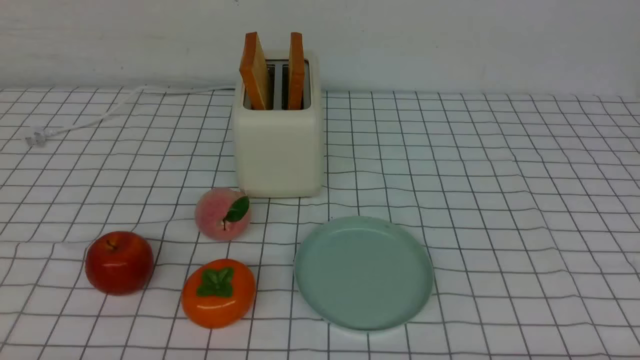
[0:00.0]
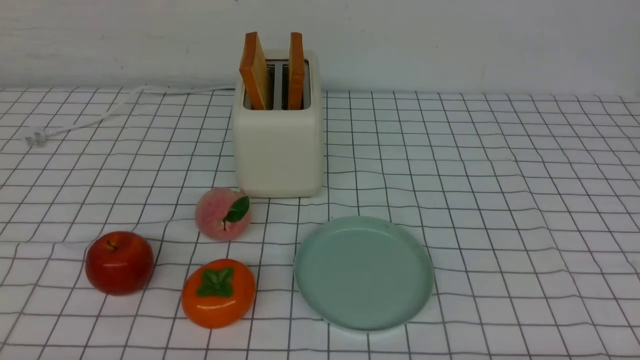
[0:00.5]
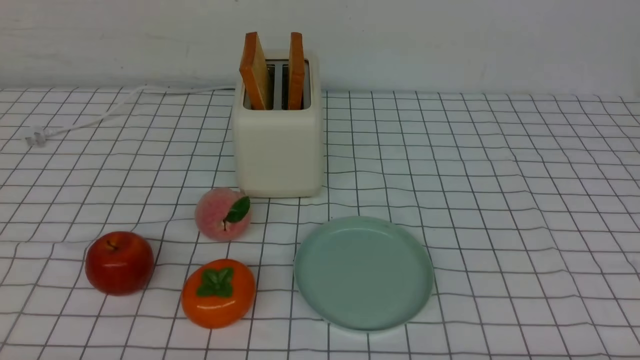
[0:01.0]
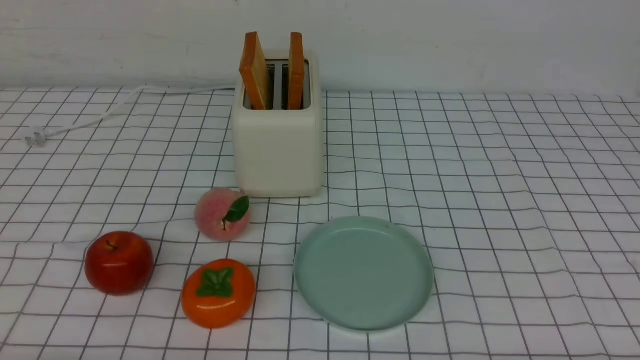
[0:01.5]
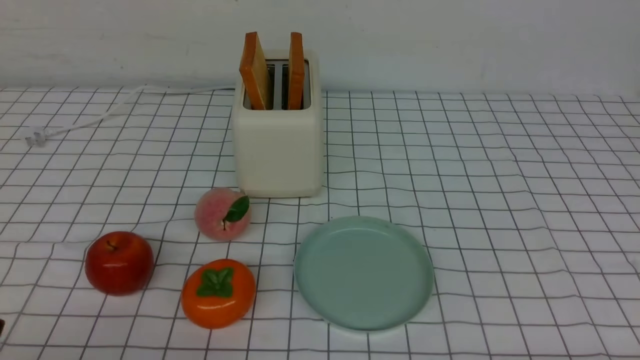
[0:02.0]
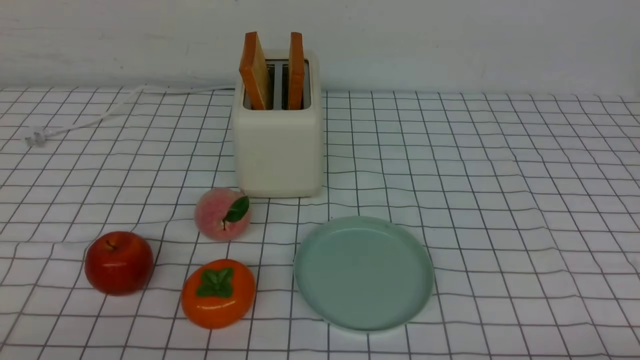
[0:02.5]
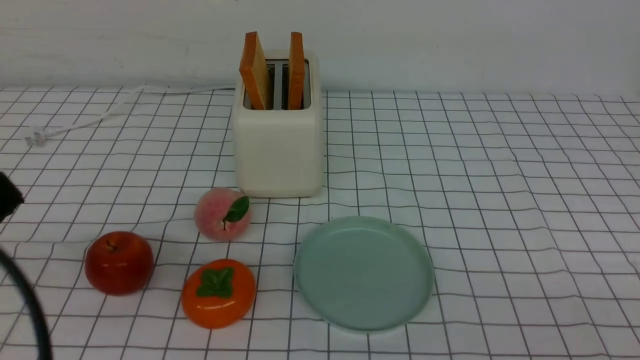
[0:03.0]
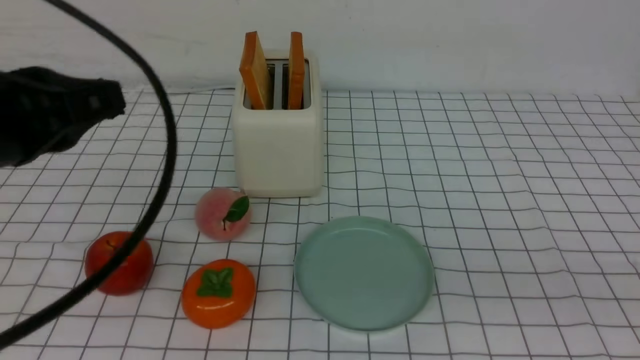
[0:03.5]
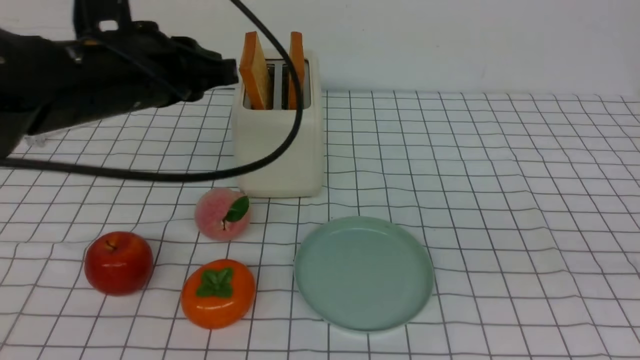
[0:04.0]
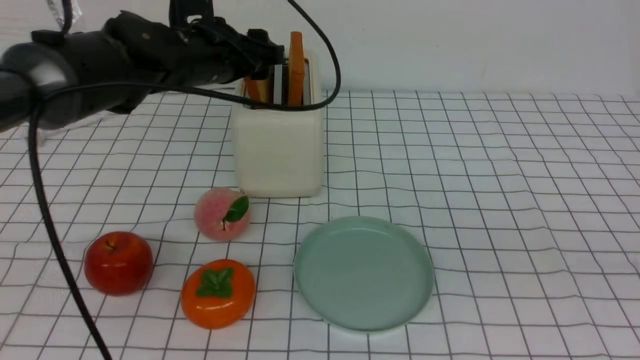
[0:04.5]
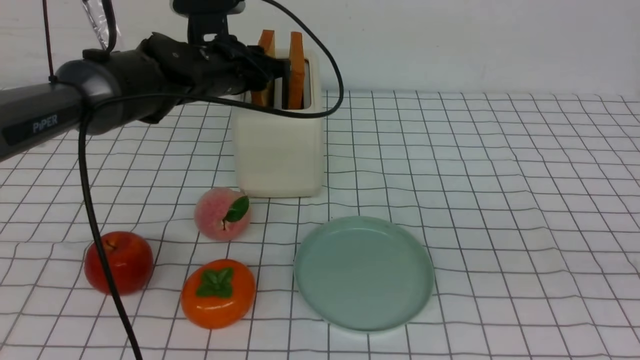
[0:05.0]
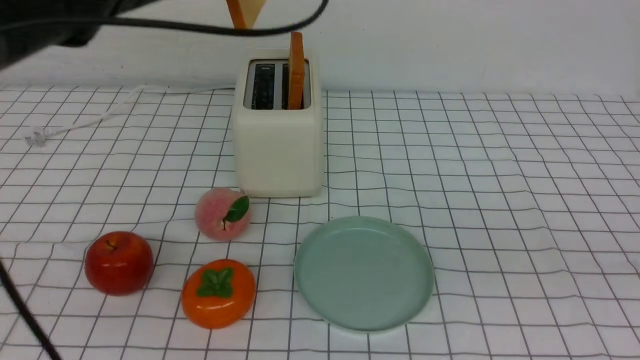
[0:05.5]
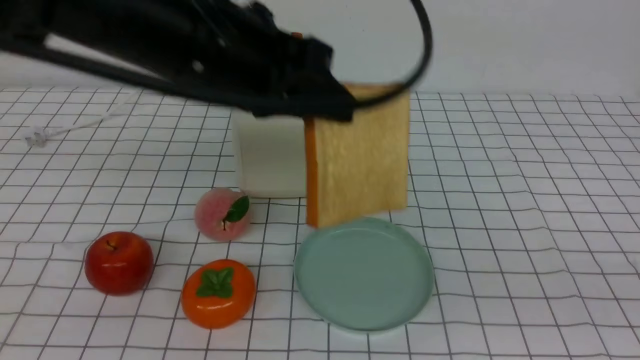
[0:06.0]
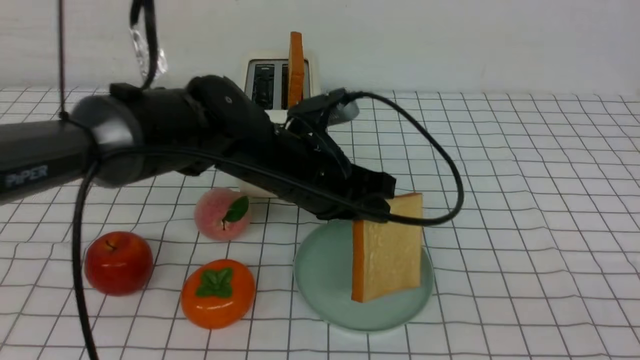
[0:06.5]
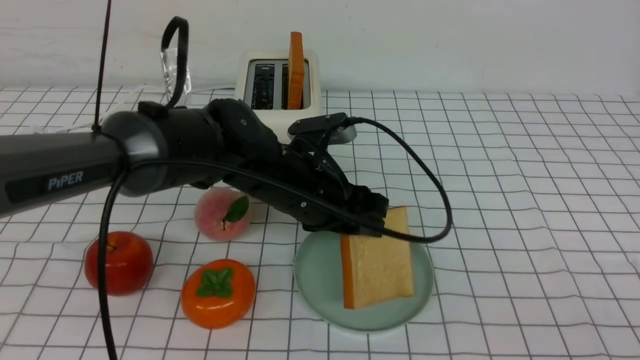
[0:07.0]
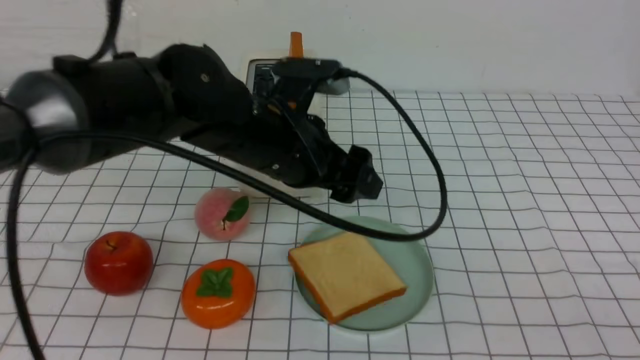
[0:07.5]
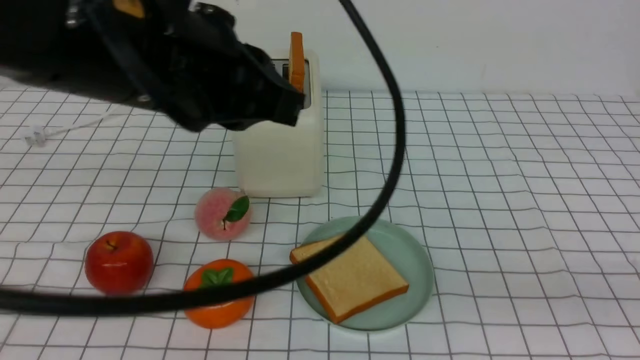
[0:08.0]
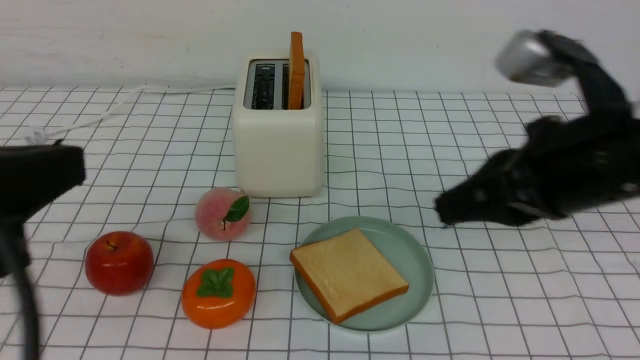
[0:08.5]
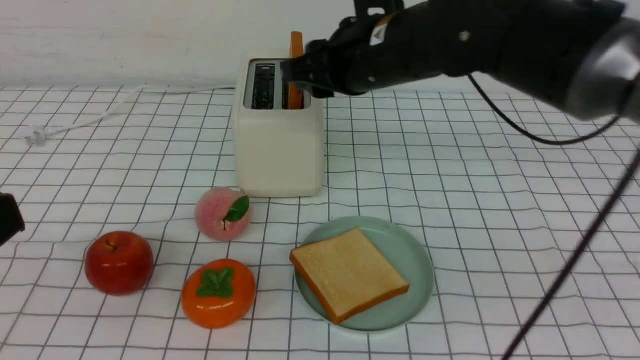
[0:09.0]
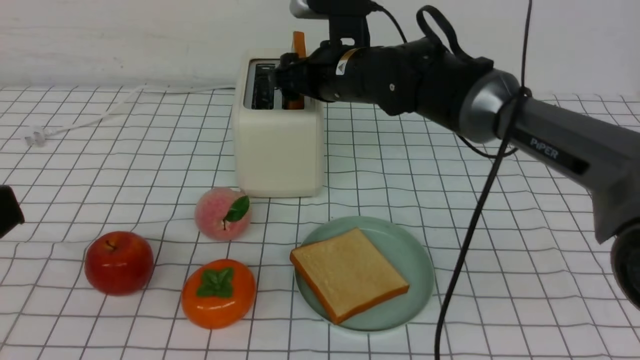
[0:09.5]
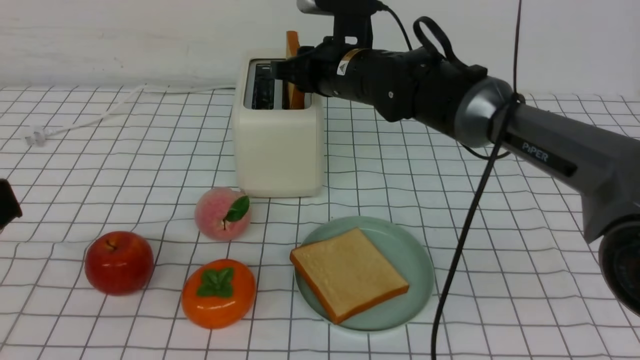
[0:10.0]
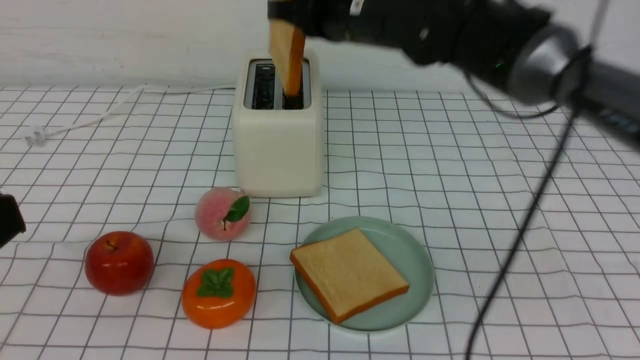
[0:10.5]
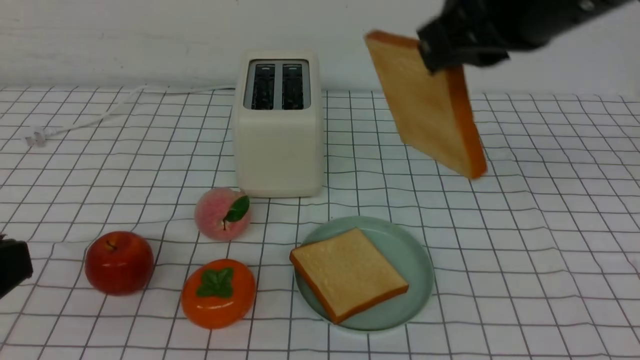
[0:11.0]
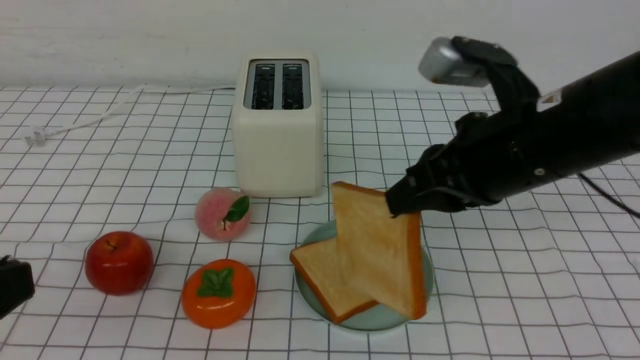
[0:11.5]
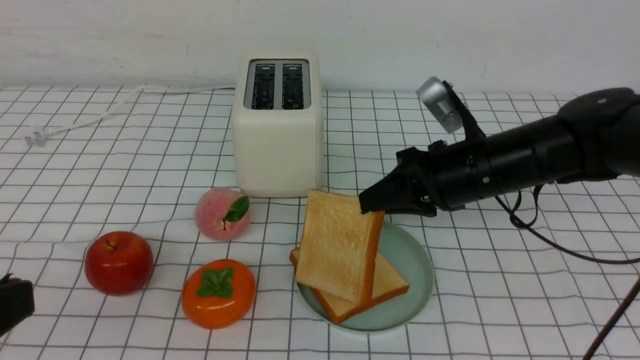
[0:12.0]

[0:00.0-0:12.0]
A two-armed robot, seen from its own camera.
Task of the whole recording: take toasted bread from bread machine on white checkered table place on plate.
Step, 0:00.0 to 0:05.0: use the left arm to take out a slice of bread.
Step, 0:05.5 to 0:07.5: use the left arm to put a slice of bread into the empty plate.
Step, 0:08.0 to 0:10.5: use the right arm to take out a slice of bread.
0:02.0 to 0:04.0: The right gripper shifts some 25 cm upward, and closes; the left gripper goes approximately 30 cm forward and upward, and closes and opens again.
0:04.0 to 0:06.0: The left gripper is displaced to the right by about 10 cm, moves approximately 15 cm forward and comes back, and opens, then closes again.
0:06.0 to 0:08.0: The right gripper moves approximately 5 cm. Meanwhile the left gripper shifts some 10 cm backward, travels downward and back again, roughly 15 cm each way, and opens, then closes once more.
0:08.0 to 0:10.0: The left gripper is displaced backward and to the left by about 20 cm, while the right gripper travels forward and to the left by approximately 40 cm, and opens.
0:10.0 to 0:12.0: The right gripper shifts roughly 15 cm to the right and backward.

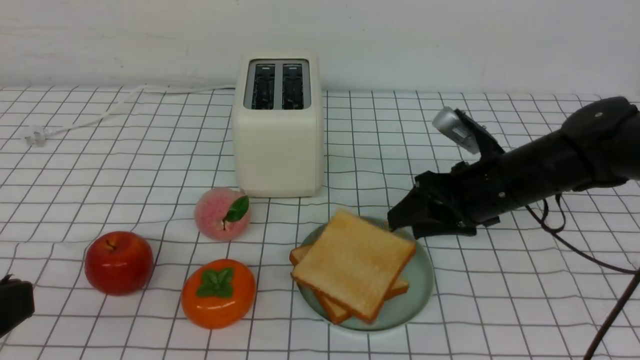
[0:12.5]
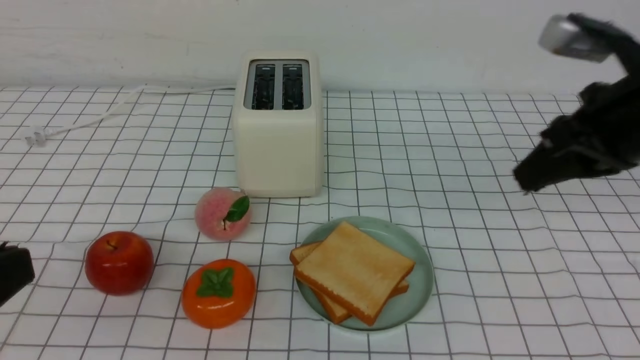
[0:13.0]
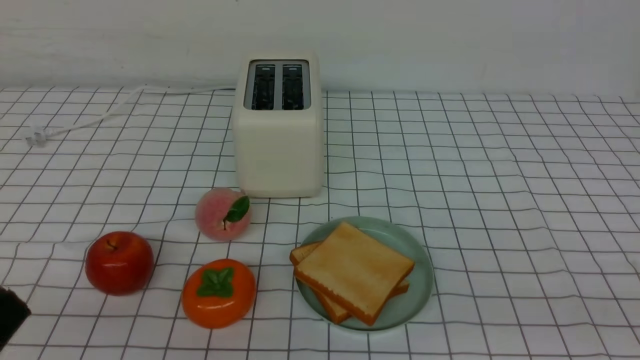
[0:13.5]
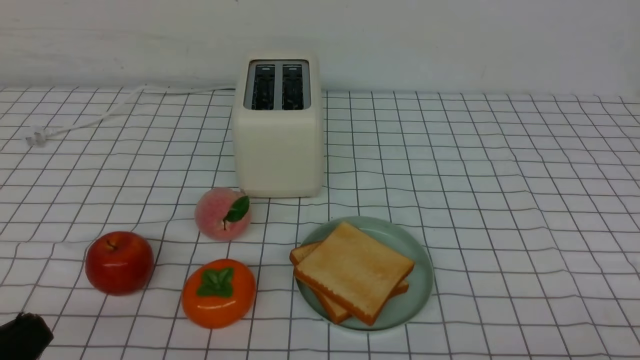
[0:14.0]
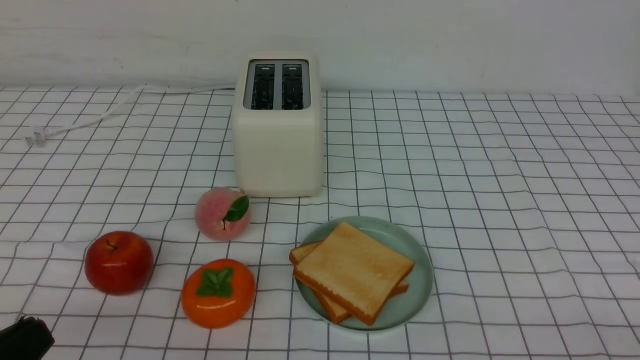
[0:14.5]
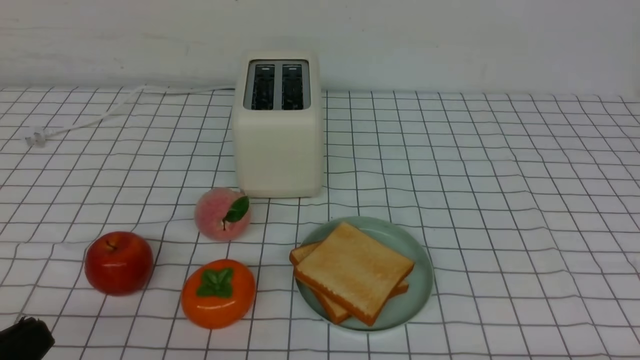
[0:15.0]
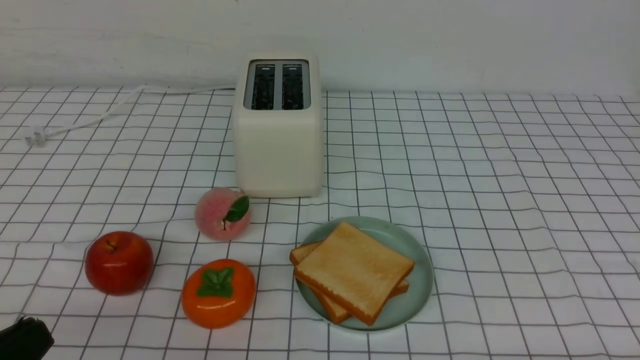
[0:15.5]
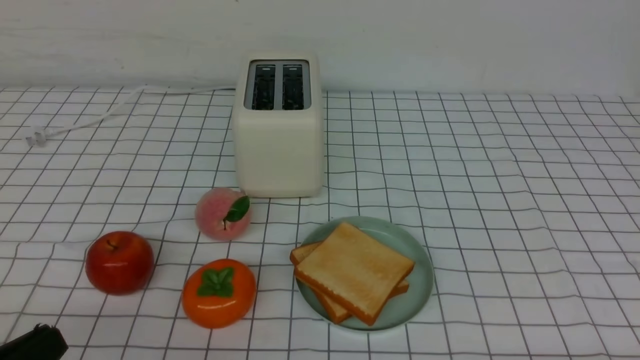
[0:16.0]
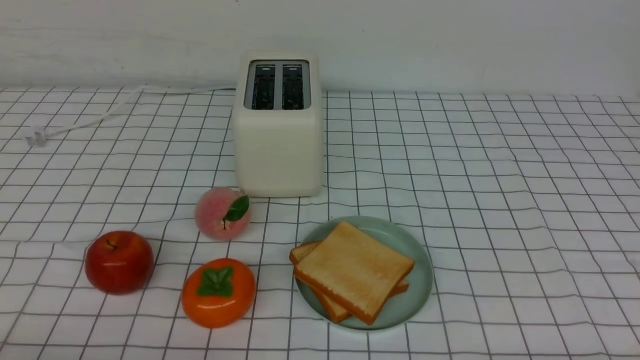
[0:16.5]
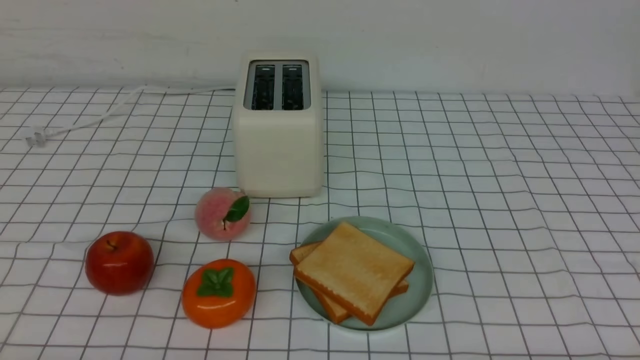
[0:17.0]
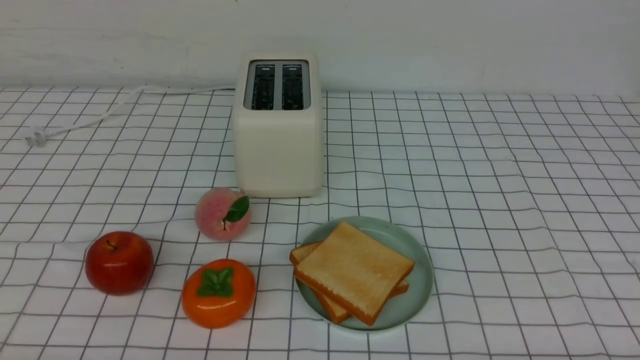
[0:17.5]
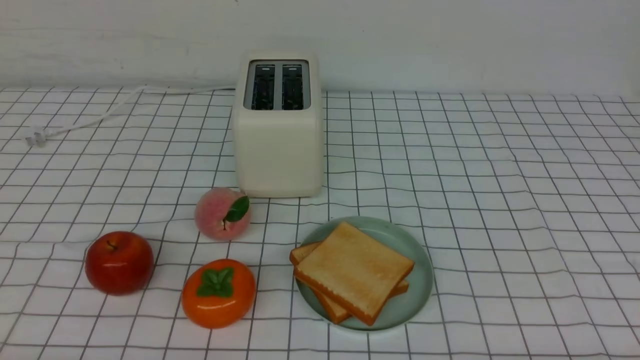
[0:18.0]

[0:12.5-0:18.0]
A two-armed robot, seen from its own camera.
Task of the whole recording: take toasted bread from bread machine on white checkered table place on plate.
0:12.5 to 0:14.5: The left gripper shifts about 10 cm downward. The right gripper goes about 30 cm backward, and closes up.
0:16.0 to 0:18.0: The left gripper goes some 5 cm downward.

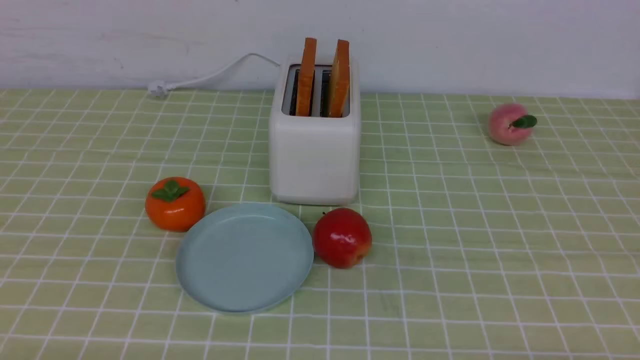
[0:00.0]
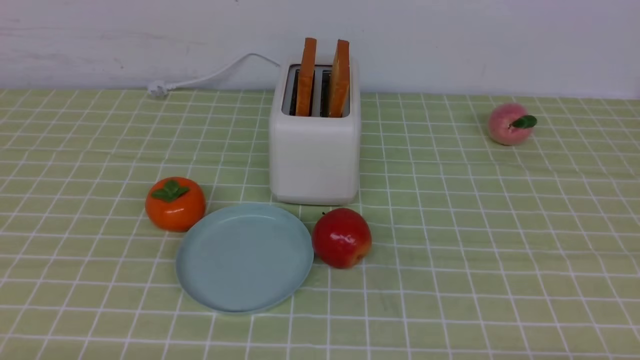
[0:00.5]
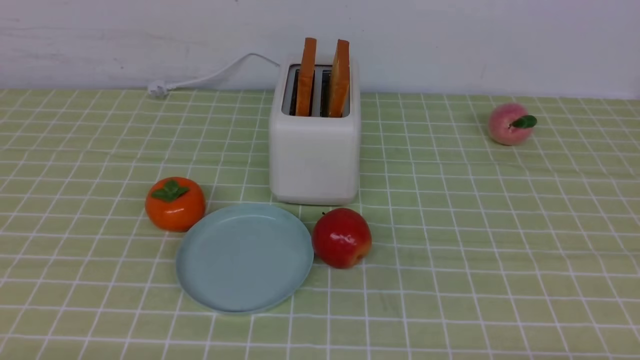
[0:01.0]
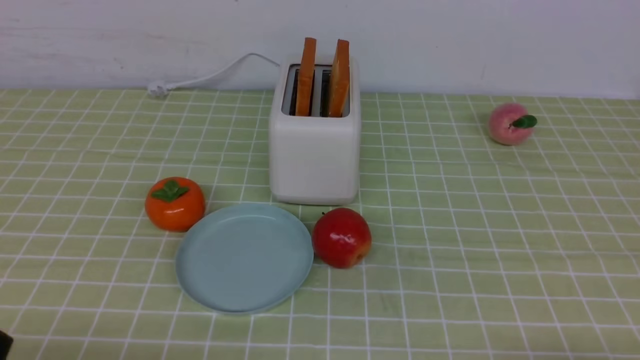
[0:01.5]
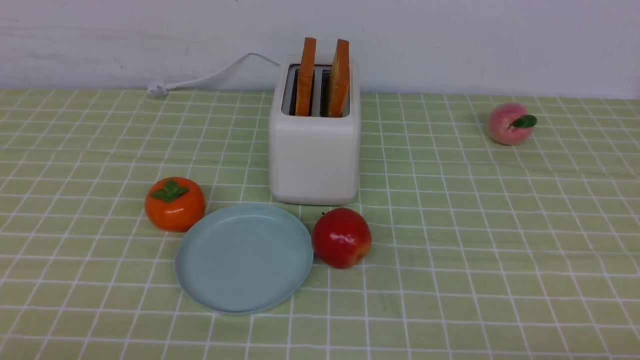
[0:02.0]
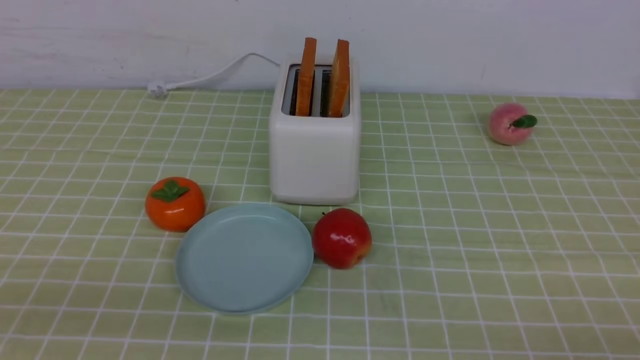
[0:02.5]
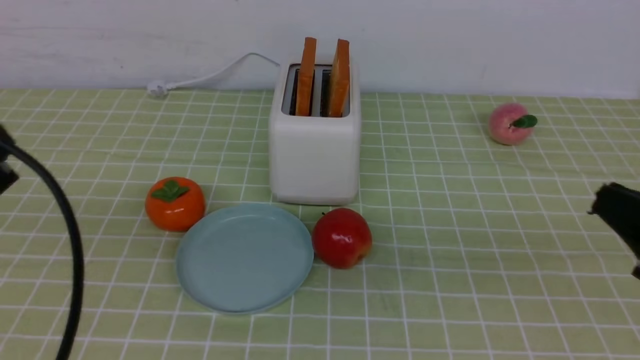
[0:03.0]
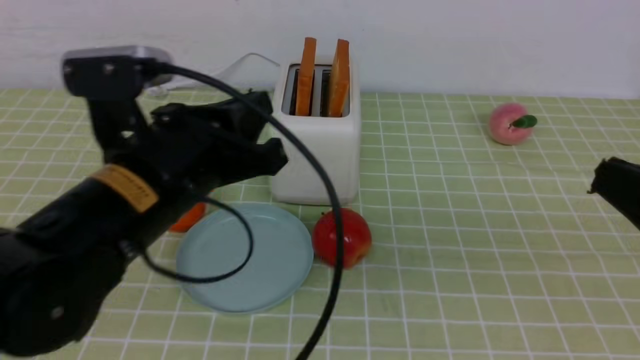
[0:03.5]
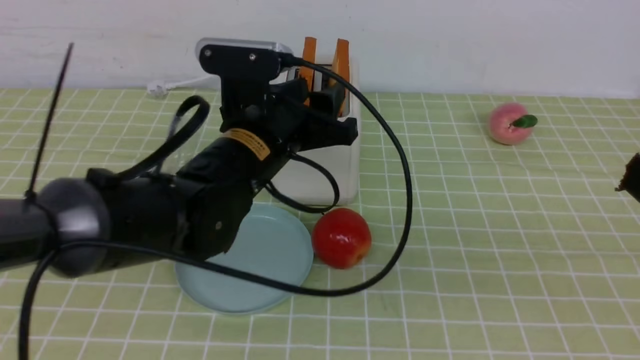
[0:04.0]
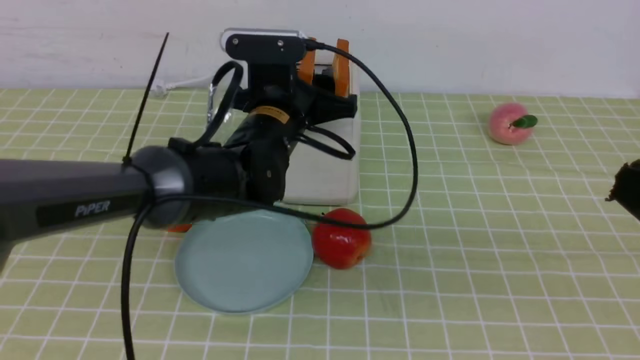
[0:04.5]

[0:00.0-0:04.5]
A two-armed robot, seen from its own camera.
Task of the whole recording: take toasted bread from bread machine on green coffee tablecloth place on plate.
0:02.0 to 0:04.5: The right gripper goes approximately 15 cm upward and to the left, and closes up; the left gripper moves forward and to the right, some 40 cm, and opens.
